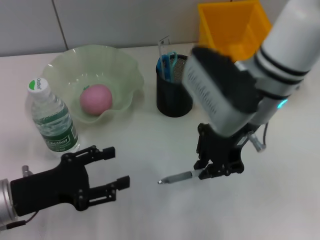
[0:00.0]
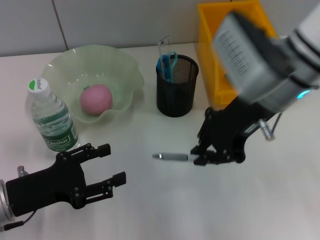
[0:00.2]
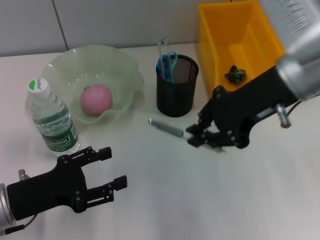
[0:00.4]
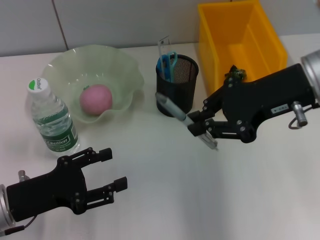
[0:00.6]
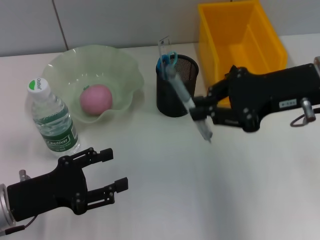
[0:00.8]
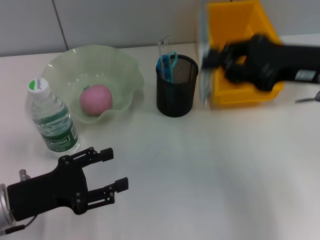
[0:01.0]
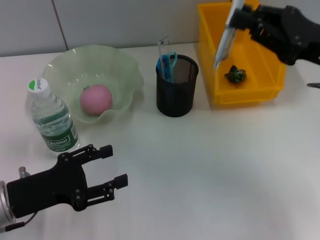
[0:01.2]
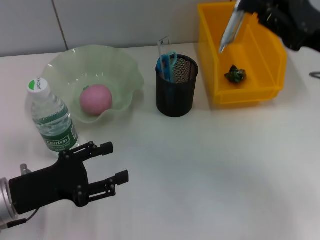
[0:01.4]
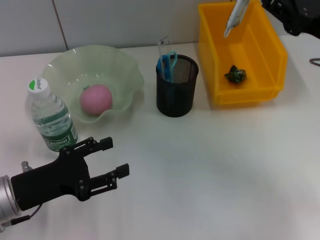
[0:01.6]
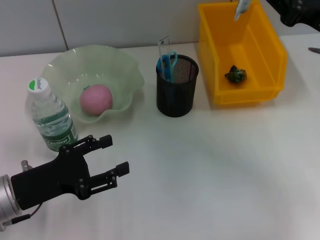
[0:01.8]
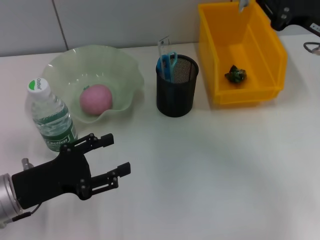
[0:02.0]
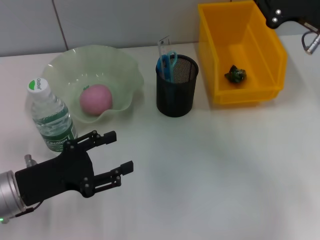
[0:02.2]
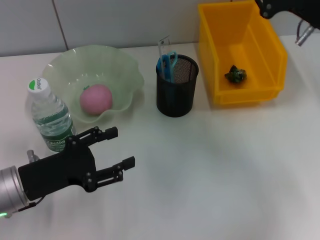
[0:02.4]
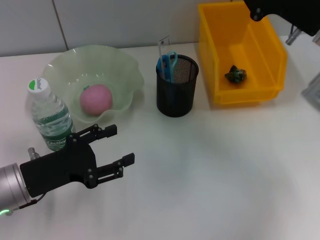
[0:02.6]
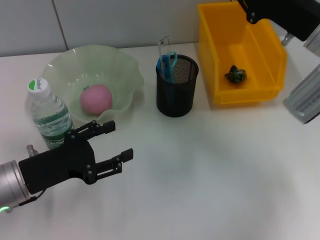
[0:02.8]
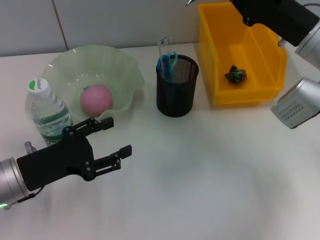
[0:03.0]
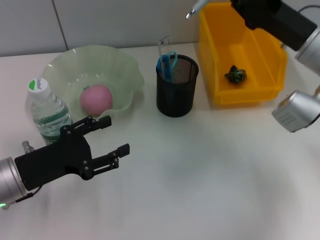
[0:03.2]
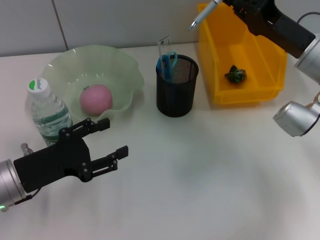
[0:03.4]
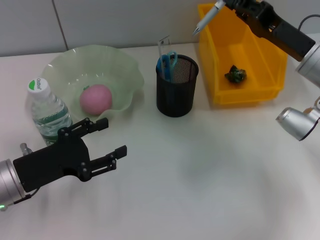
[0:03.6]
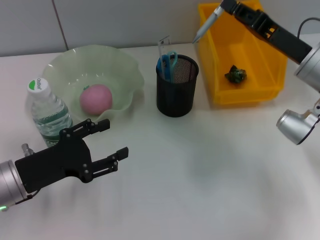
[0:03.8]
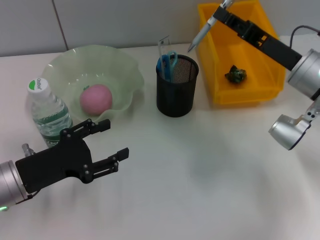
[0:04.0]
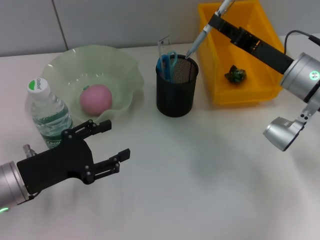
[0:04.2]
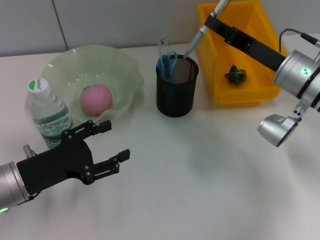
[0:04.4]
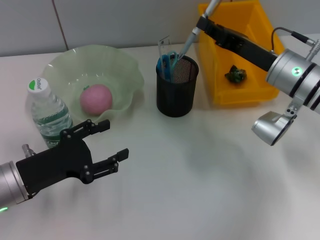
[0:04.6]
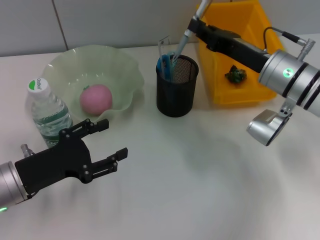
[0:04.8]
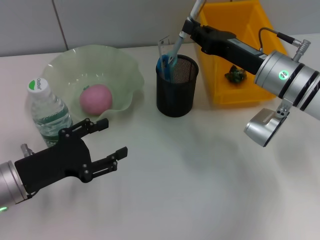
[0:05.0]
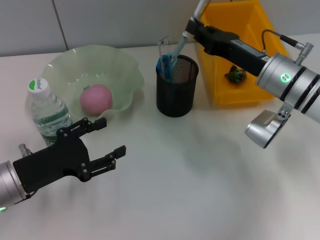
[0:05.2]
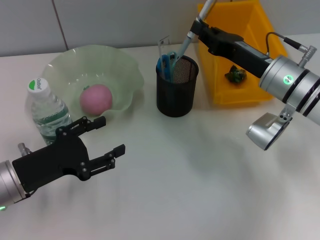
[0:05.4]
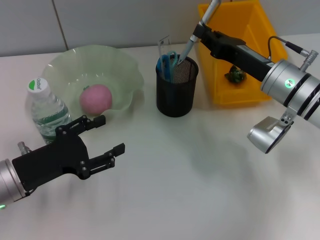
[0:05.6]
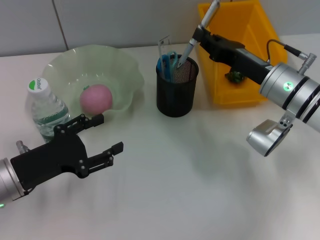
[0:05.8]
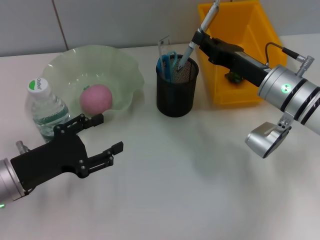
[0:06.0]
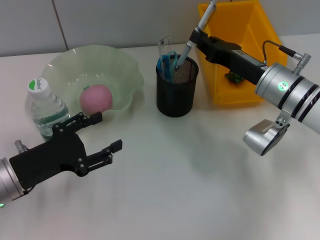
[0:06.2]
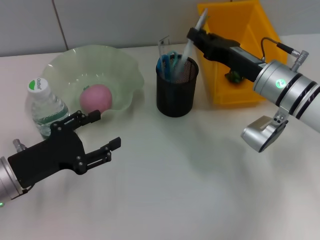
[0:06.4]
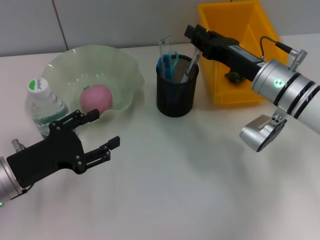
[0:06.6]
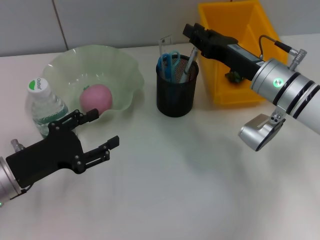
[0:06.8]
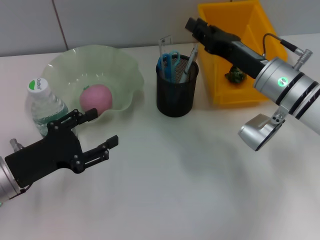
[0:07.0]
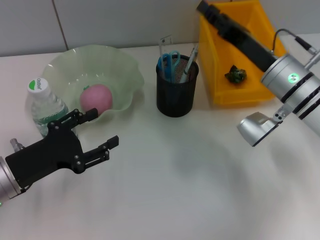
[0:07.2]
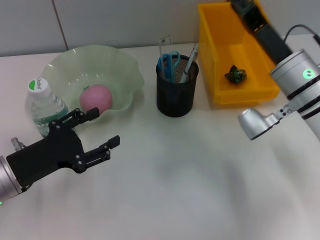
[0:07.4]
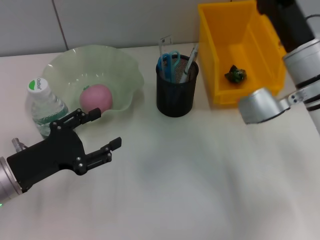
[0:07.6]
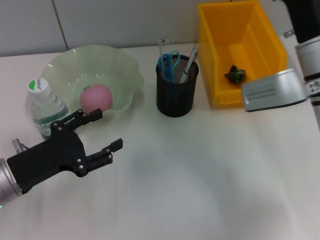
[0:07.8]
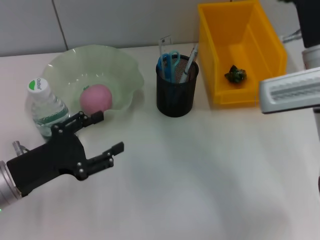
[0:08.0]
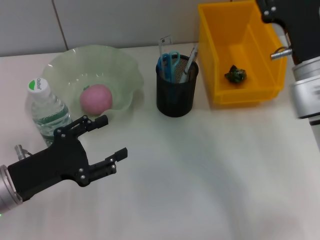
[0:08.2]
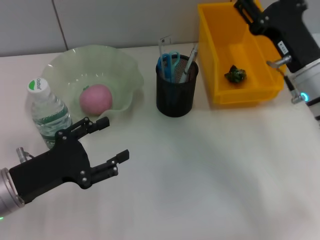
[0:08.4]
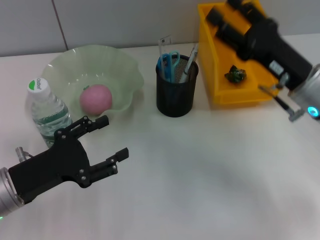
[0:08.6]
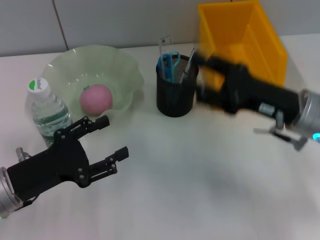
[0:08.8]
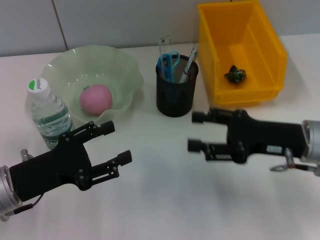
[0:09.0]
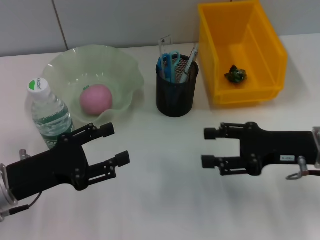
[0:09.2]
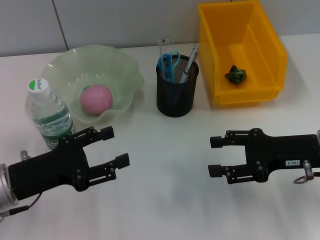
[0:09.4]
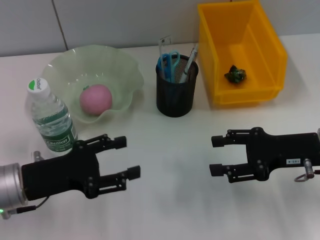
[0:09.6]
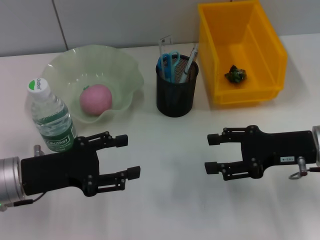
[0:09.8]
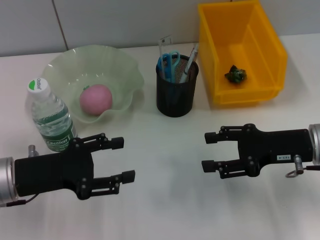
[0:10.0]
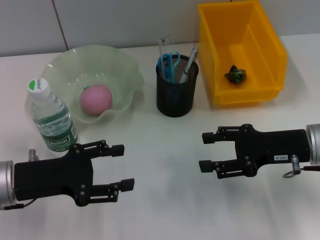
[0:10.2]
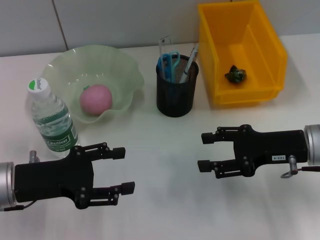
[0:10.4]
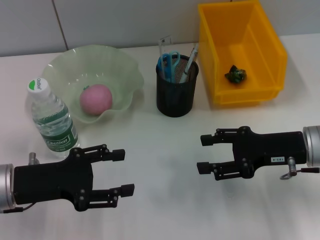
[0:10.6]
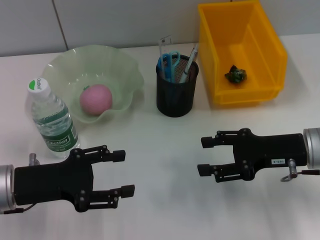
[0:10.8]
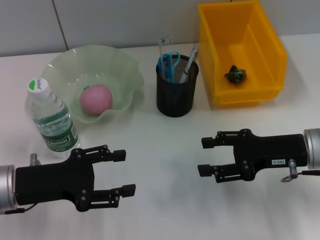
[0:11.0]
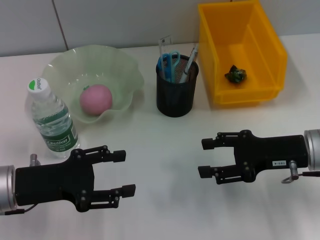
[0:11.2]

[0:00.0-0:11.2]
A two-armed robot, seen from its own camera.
Step, 0:00.0 to 0:07.0: Place the gray spring-action pen into the pen holder with the right hand.
0:00.0 to 0:01.6: The right gripper travels to the right by approximately 15 cm.
0:01.6 to 0:03.2: The right gripper shifts by approximately 5 cm.
0:03.2 to 0:04.8: The right gripper moves approximately 5 cm.
0:04.8 to 0:06.4: The grippers move only a little.
0:06.4 to 0:08.0: The right gripper ends up approximately 5 cm from where it was, and opens its fingers.
0:08.0 to 0:09.6: The right gripper moves to the right, some 5 cm.
0:09.6 to 0:11.2: The grippers stay close to where they were, moving slightly.
